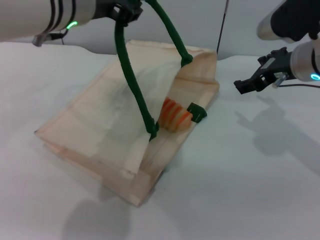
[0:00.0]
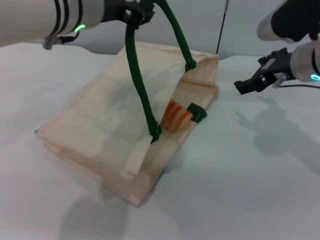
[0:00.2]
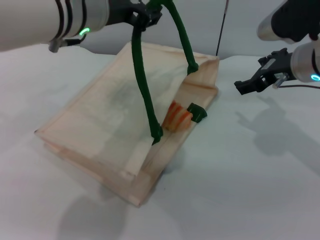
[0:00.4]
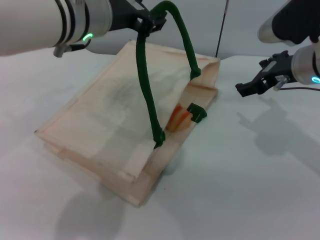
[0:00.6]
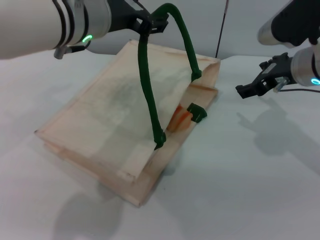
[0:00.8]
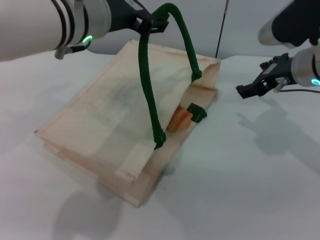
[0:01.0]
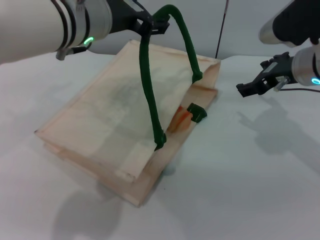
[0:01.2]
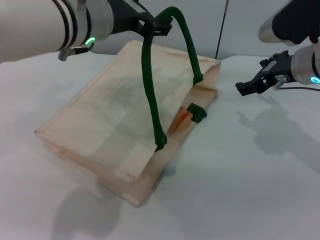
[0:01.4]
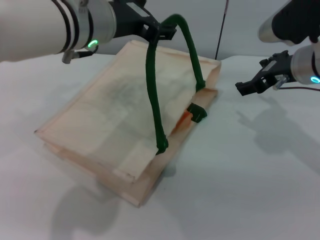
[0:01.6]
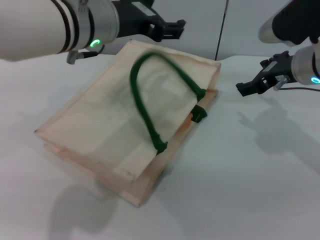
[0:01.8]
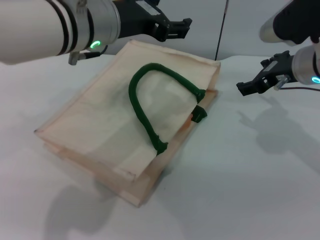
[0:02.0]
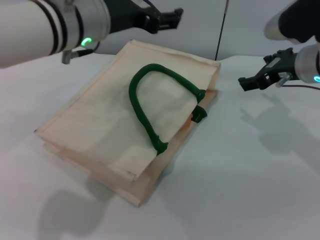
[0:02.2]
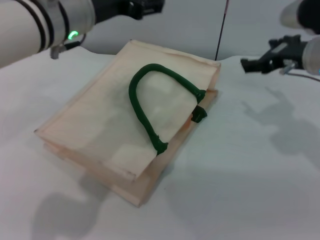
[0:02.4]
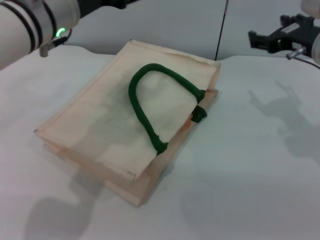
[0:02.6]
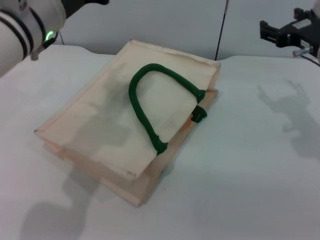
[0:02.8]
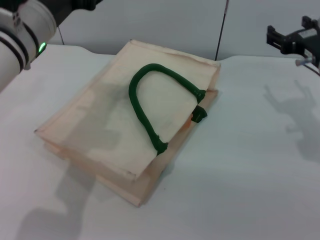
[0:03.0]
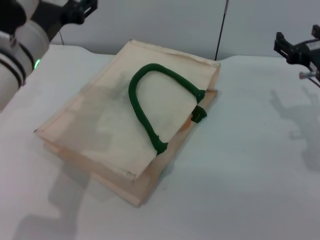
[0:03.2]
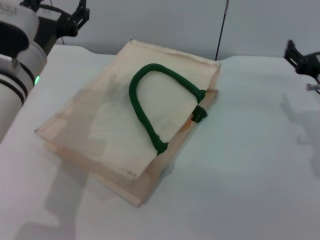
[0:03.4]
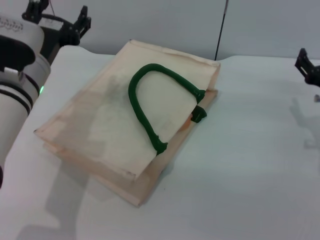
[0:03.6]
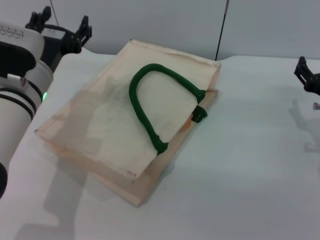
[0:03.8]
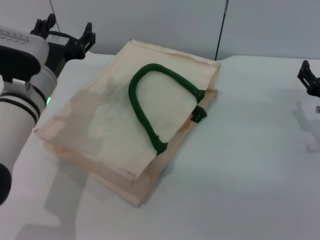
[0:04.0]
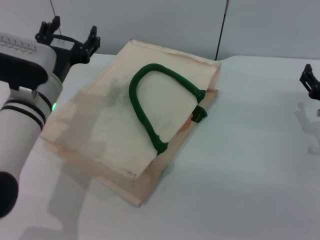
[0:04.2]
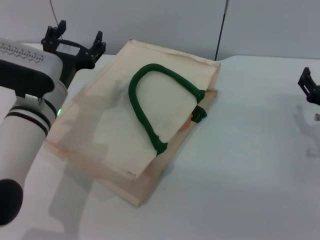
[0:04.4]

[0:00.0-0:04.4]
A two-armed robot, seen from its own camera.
Task of the whole recording: pick up the bread and egg yolk pastry from the table and place it in the white handbag.
Step, 0:00.0 to 0:02.4: Lower the woven bag with the left gripper to close it.
0:00.0 to 0:01.4: The left gripper opens its fingers.
0:01.4 to 0:03.0: The left gripper moves to the left, about 5 cm, while the right gripper shifts by some 5 cm.
0:03.0 to 0:04.4: The right gripper is displaced downward and backward by some 10 cm. The left gripper goes approximately 10 cm downward.
